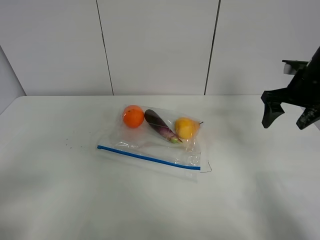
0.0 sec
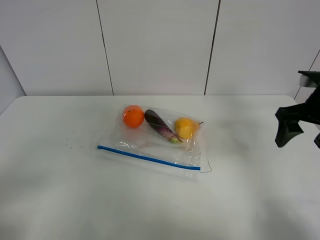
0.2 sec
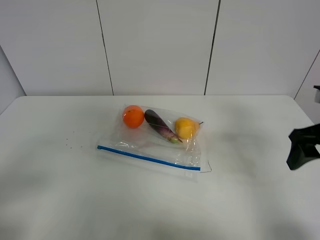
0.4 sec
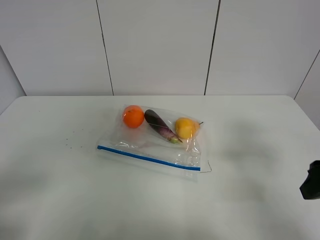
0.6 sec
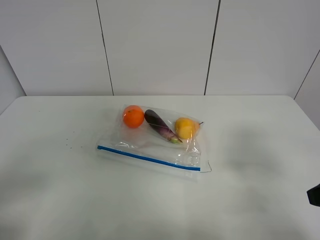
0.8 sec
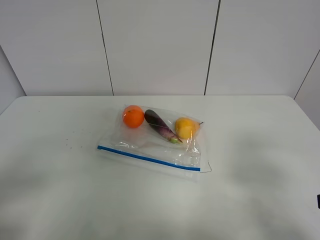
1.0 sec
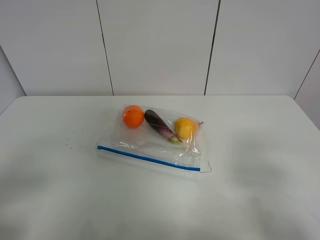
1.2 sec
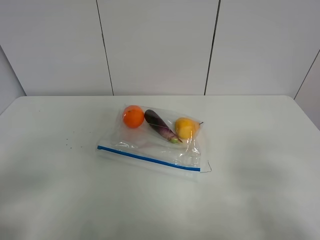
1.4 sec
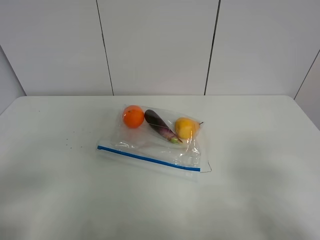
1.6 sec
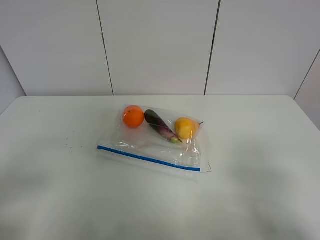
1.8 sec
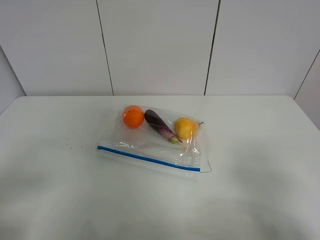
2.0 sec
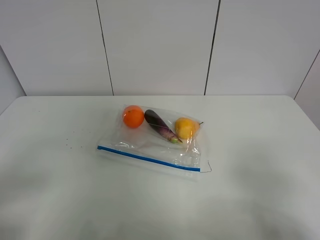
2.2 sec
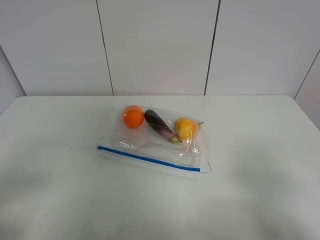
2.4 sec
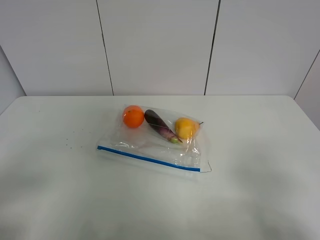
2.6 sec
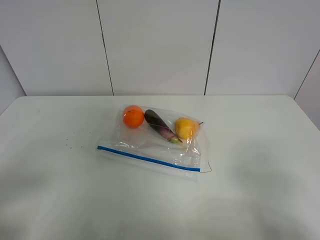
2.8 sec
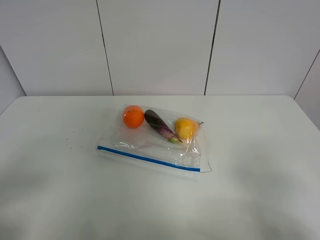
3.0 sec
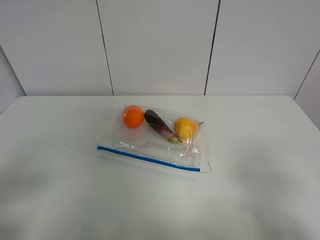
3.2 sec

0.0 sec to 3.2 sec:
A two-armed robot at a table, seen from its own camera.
0.0 sec to 1.6 sec: The right gripper travels backward by roughly 30 cm.

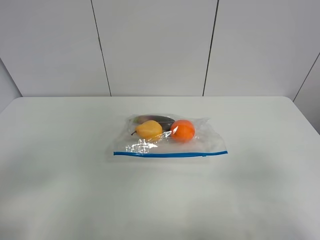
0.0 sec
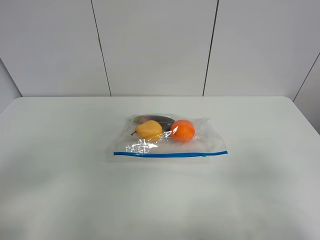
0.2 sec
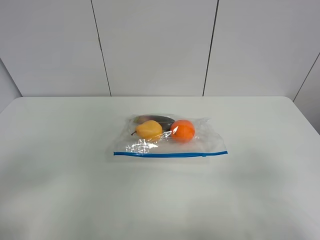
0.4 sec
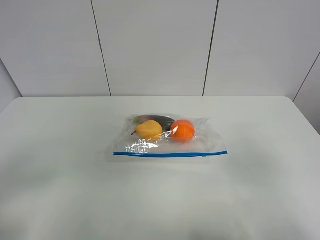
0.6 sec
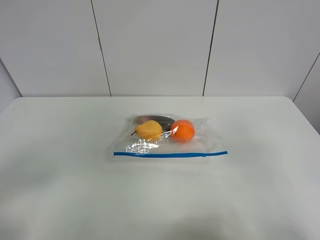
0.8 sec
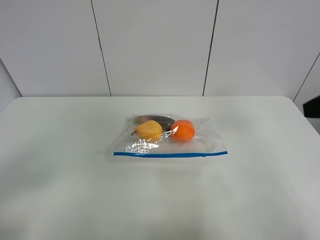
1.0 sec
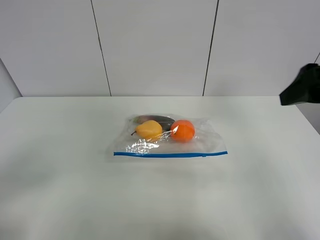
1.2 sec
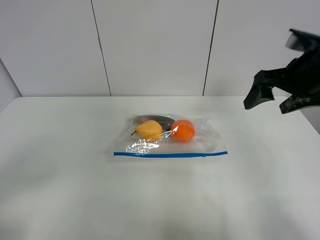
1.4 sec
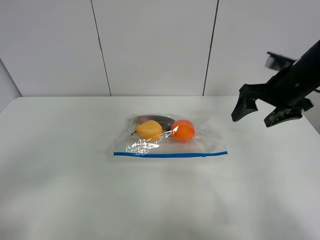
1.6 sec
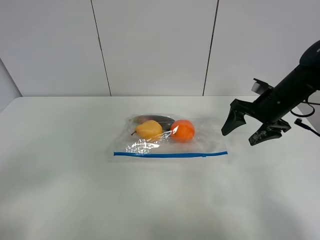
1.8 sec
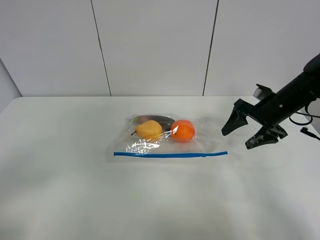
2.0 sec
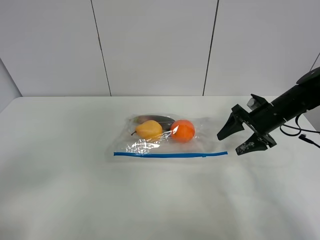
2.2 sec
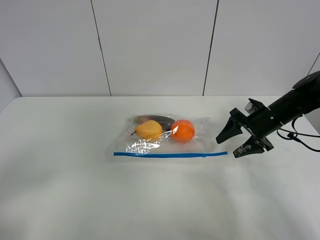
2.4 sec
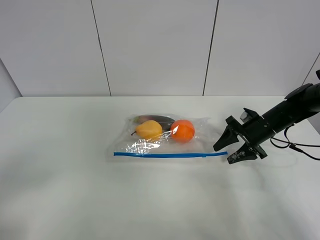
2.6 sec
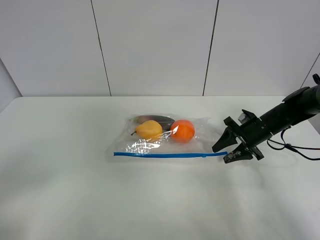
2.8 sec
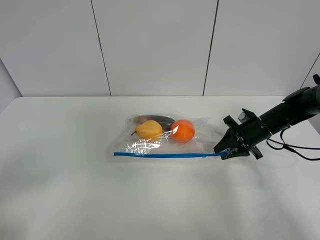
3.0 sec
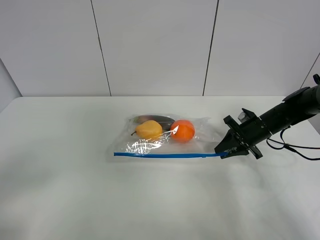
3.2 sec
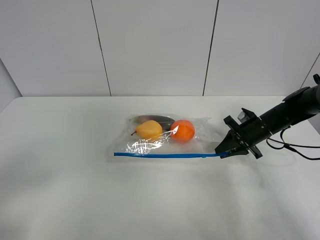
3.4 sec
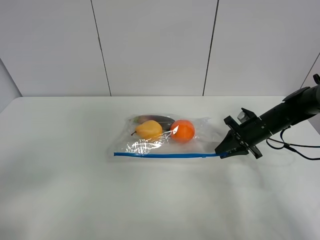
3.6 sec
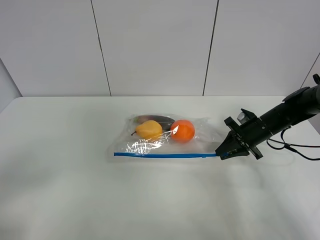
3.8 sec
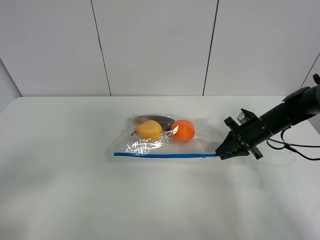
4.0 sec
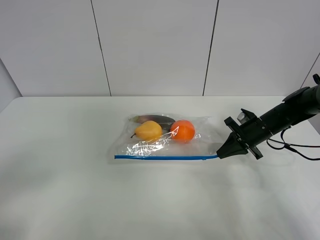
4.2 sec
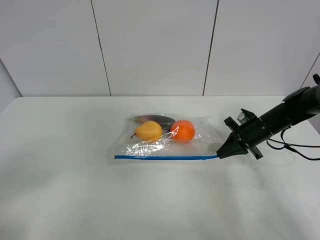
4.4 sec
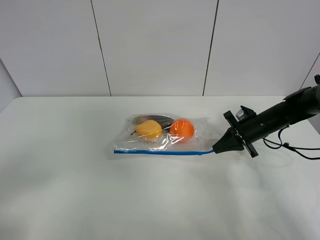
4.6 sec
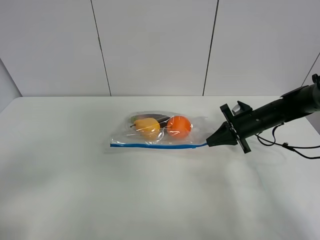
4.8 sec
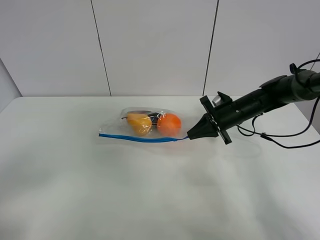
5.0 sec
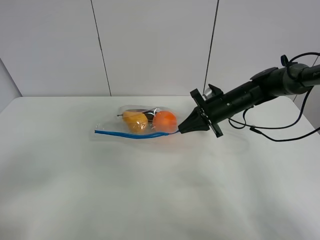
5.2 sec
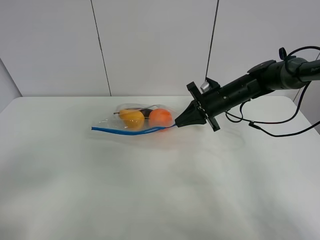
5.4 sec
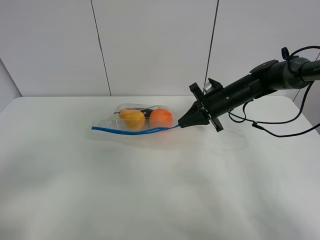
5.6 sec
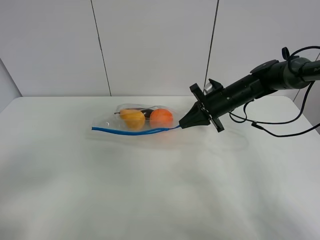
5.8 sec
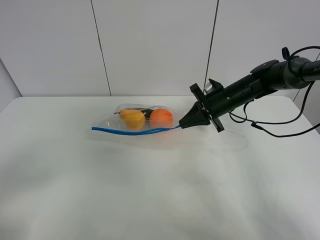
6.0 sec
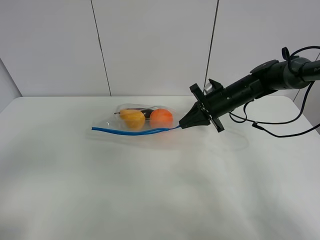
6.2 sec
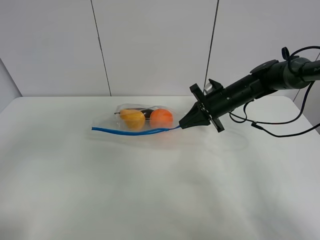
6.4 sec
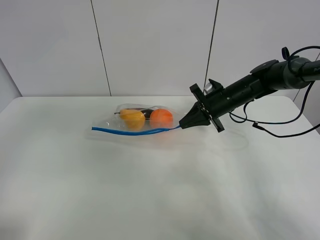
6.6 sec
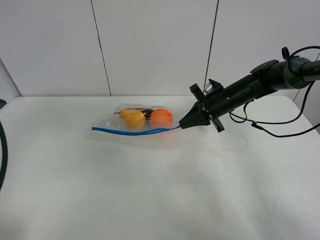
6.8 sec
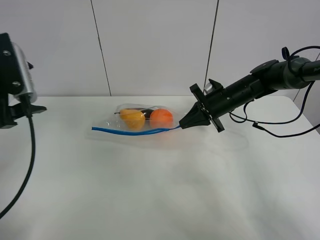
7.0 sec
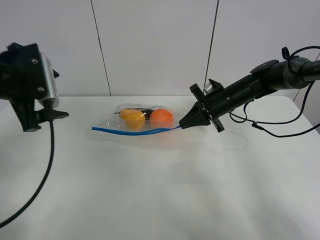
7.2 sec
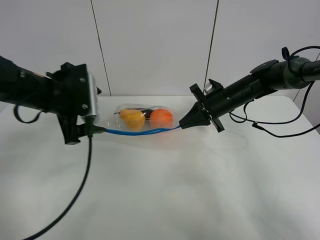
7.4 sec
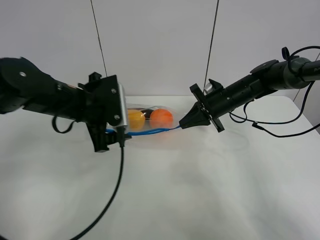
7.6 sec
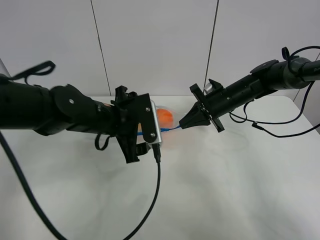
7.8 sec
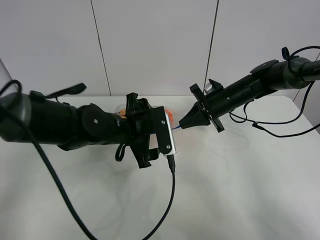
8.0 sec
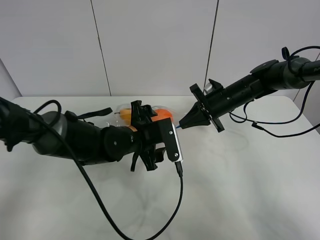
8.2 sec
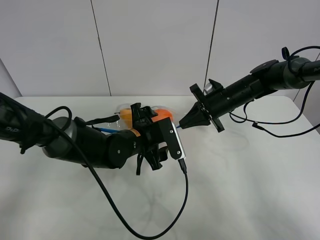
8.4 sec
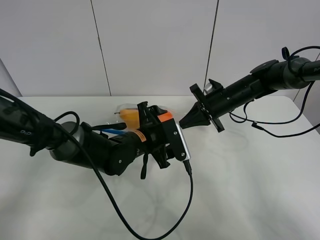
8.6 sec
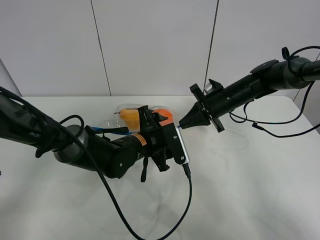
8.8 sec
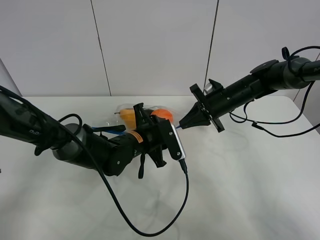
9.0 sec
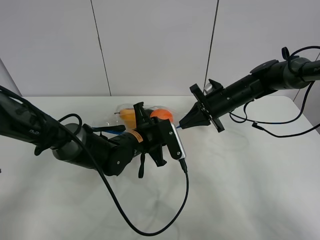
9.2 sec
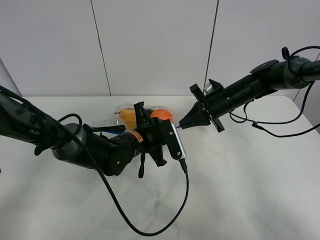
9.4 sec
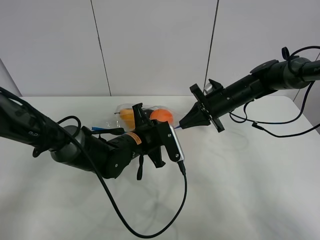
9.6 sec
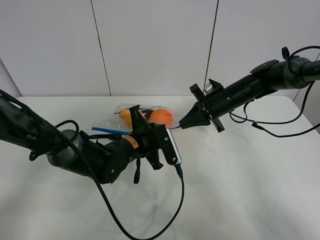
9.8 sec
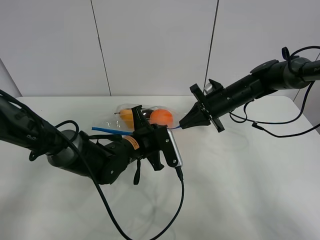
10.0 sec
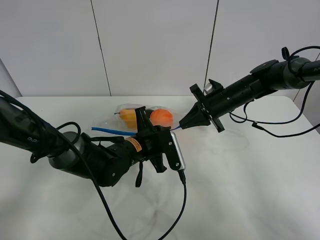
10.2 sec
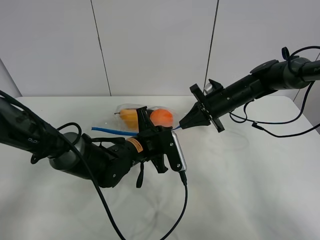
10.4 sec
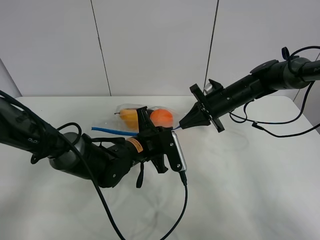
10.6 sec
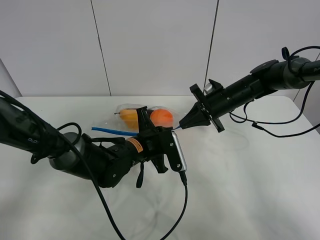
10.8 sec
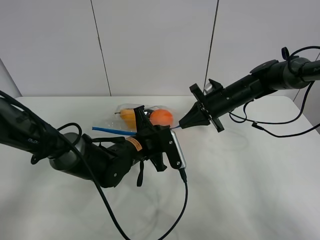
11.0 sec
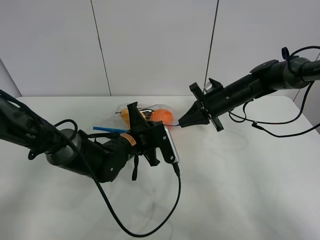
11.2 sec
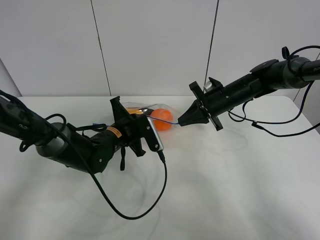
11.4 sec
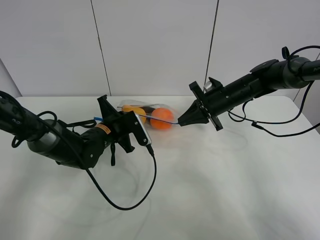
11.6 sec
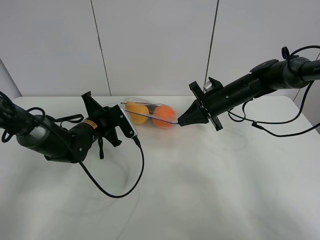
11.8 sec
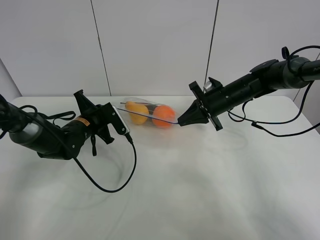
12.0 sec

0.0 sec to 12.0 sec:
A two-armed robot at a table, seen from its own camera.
Step, 0.0 sec to 4.0 sec: Grasp the fruit bag with right gripper.
Step, 4.2 sec to 5.4 sec: Lift the fruit bag with your right gripper.
0.0 sec to 1.6 sec: The right gripper goes some 30 cm forward.
1.6 sec to 3.0 sec: The right gripper travels downward by roughly 15 cm, and closes its fingers.
3.0 sec to 4.4 sec: The right gripper closes up.
4.4 sec to 6.0 sec: The right gripper shifts some 10 cm to the left and upward.
6.0 sec to 7.6 sec: The left gripper is displaced forward and to the right by approximately 35 cm.
7.6 sec to 9.0 sec: The left gripper heads downward and to the right, covering roughly 15 cm, and closes.
9.0 sec to 10.4 sec: The left gripper closes.
10.4 sec to 12.0 sec: The left gripper is displaced to the left and forward by some 15 cm.

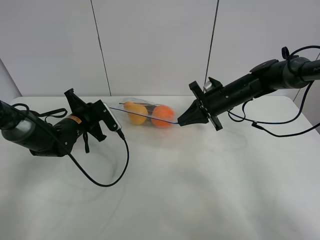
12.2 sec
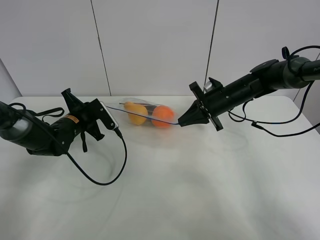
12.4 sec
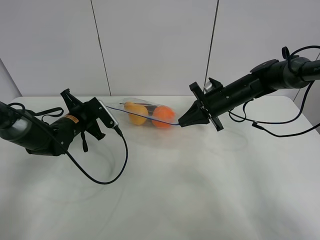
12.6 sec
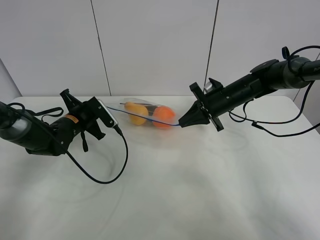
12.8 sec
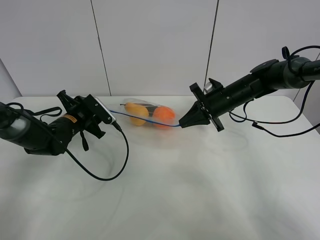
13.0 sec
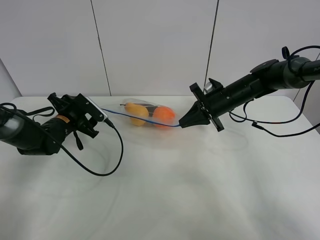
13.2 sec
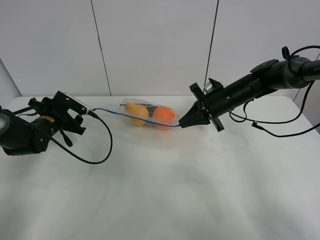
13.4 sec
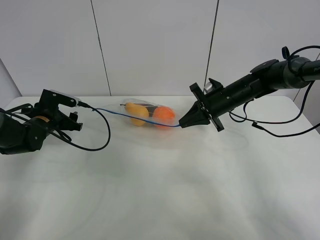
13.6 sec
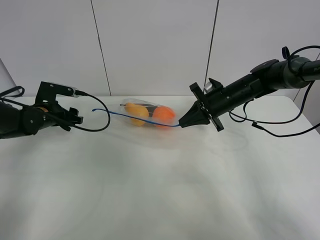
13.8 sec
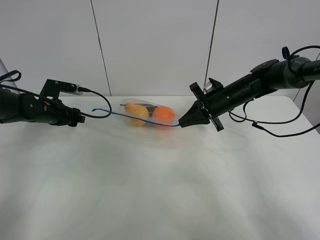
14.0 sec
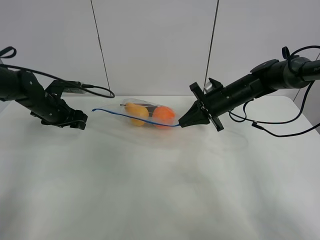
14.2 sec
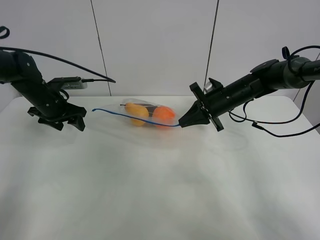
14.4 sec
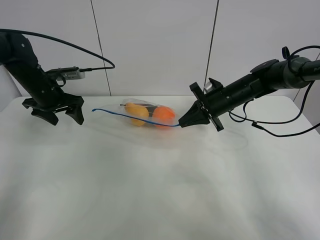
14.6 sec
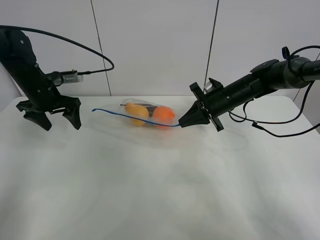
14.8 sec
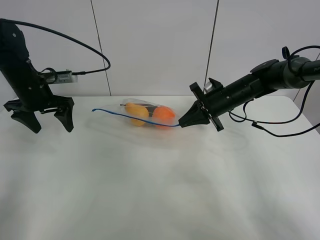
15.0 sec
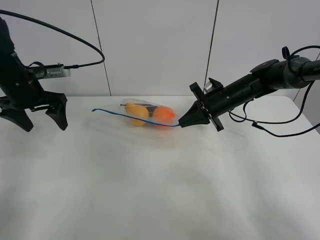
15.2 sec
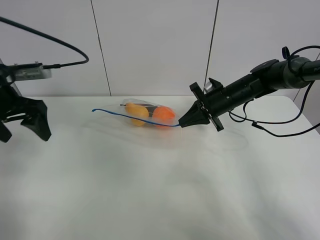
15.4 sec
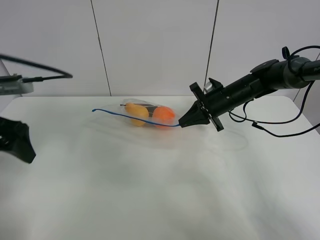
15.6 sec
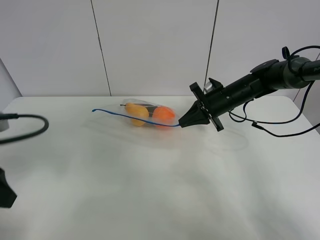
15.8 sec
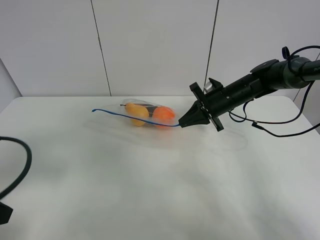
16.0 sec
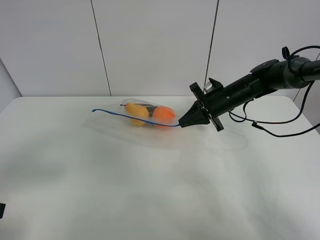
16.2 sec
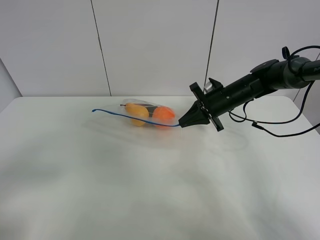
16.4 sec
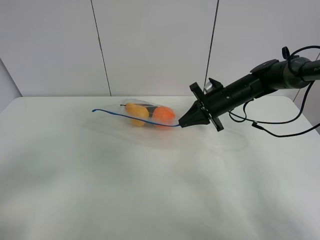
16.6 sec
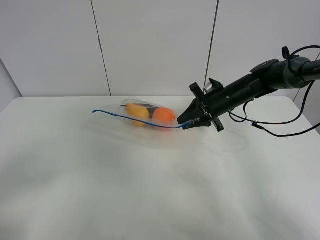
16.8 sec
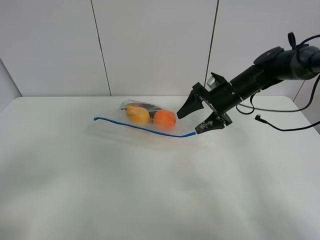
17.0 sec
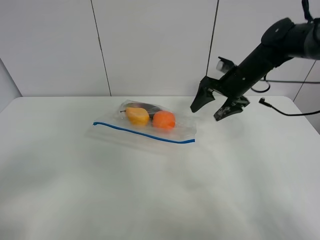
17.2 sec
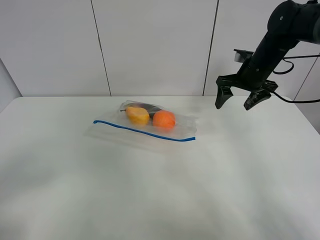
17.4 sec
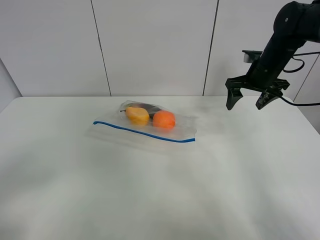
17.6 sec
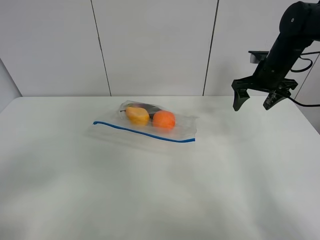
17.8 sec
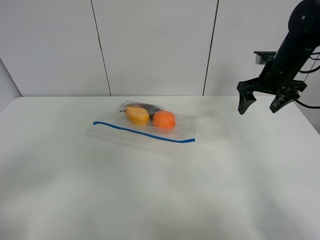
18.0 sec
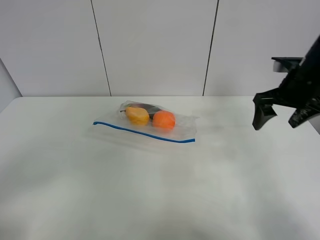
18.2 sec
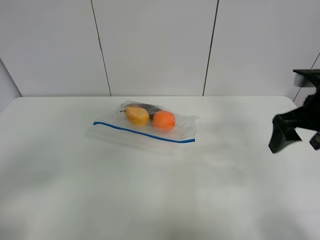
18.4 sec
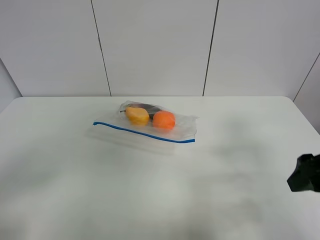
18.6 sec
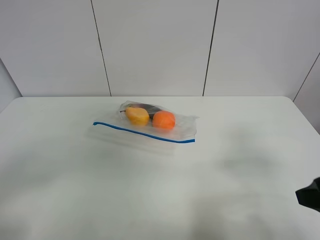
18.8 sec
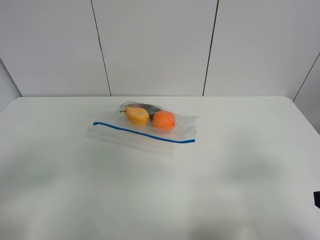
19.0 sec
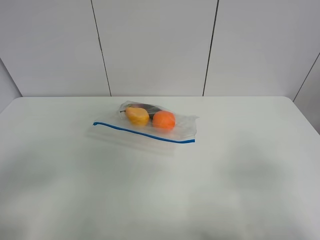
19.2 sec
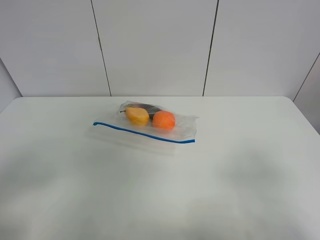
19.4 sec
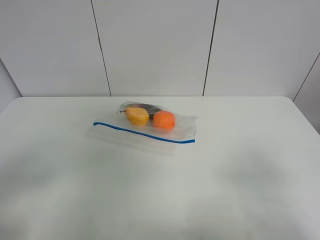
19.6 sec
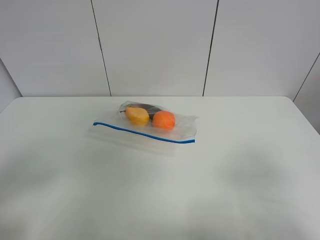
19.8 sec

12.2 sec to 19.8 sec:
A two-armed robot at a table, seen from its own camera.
12.2 sec to 13.8 sec: The left gripper heads to the left, covering some 10 cm, and opens up.
13.8 sec to 15.2 sec: The left gripper is displaced upward by approximately 15 cm.
15.2 sec to 16.8 sec: The right gripper opens, while the left gripper heads backward, covering approximately 35 cm.
16.8 sec to 18.2 sec: The right gripper moves upward, backward and to the right, approximately 20 cm, and opens its fingers.
18.2 sec to 19.8 sec: The right gripper is displaced backward by roughly 30 cm.
